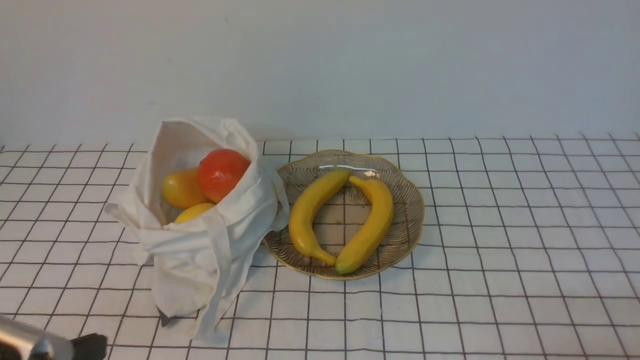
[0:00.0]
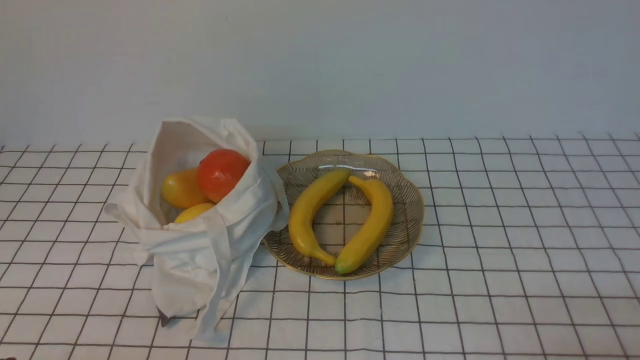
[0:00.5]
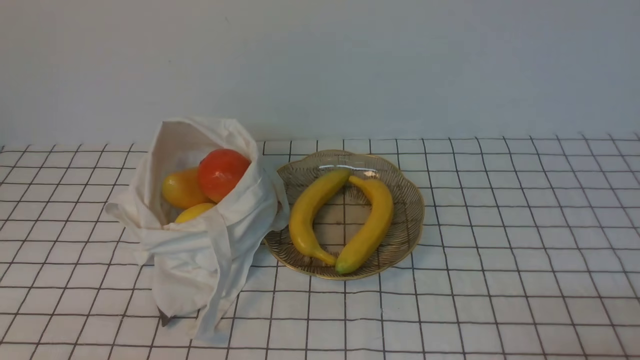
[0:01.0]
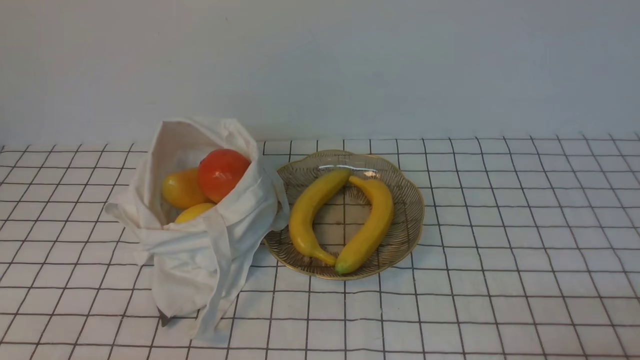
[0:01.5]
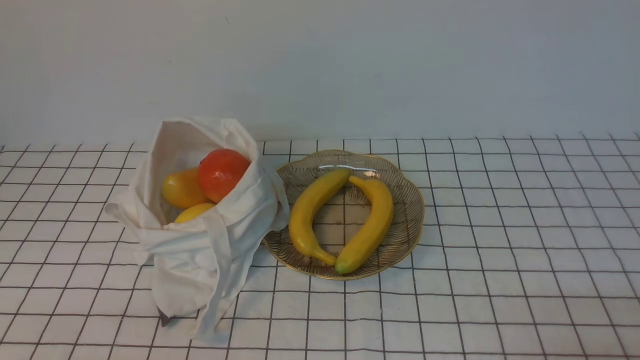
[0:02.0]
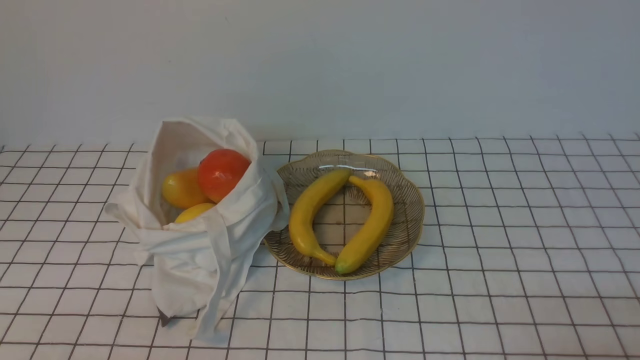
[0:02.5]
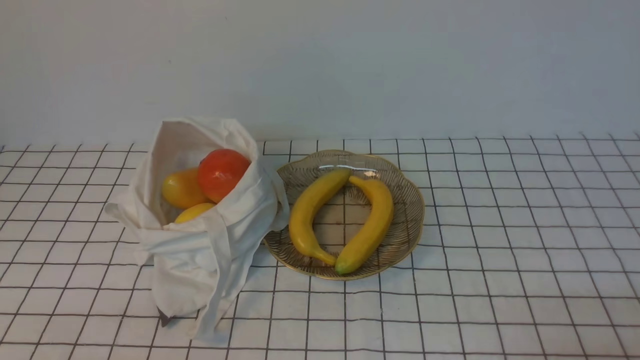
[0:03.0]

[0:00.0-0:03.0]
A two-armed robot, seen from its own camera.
0:00.0 to 0:01.5: The left gripper shifts roughly 5 cm downward.
0:01.5 to 0:03.0: Both grippers stay about where they are.
